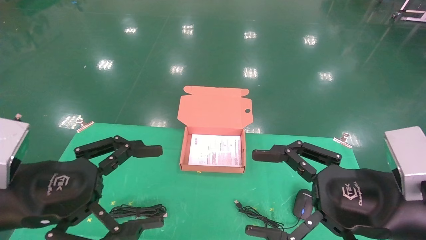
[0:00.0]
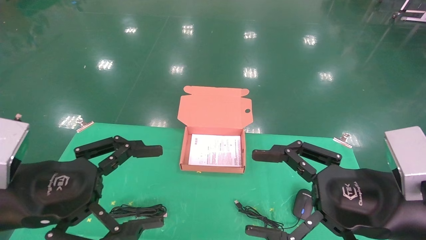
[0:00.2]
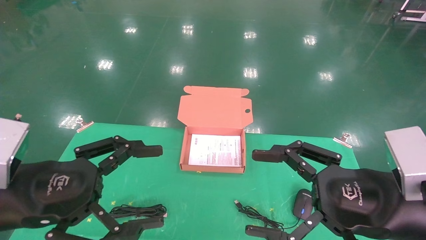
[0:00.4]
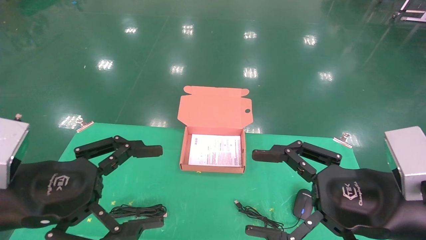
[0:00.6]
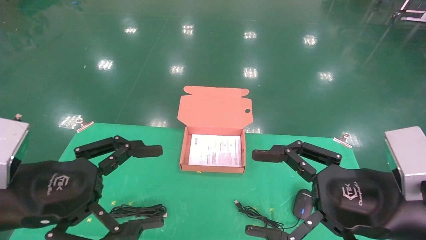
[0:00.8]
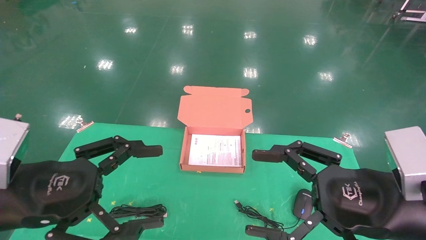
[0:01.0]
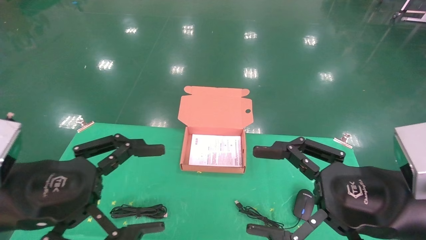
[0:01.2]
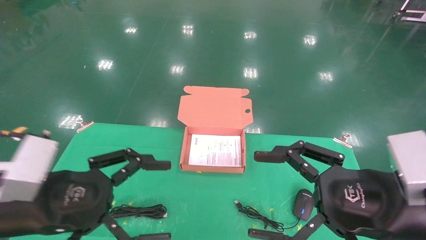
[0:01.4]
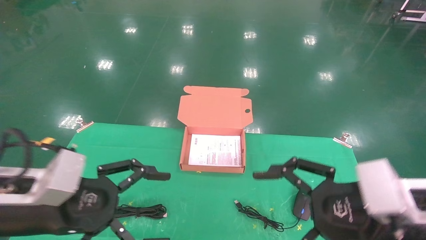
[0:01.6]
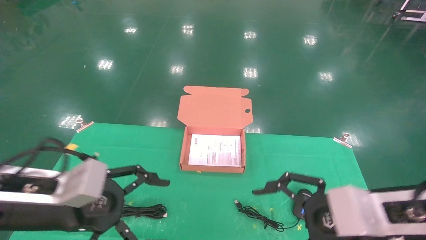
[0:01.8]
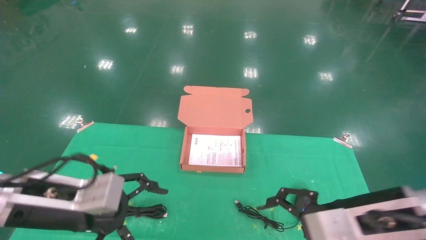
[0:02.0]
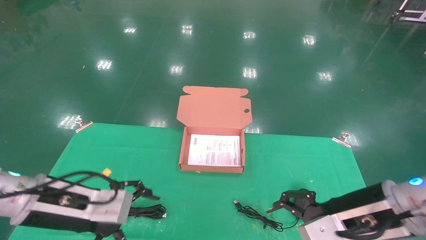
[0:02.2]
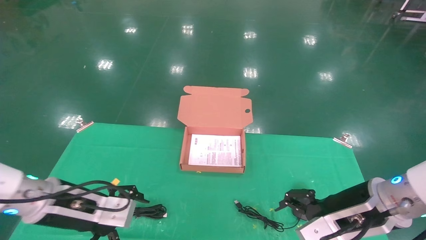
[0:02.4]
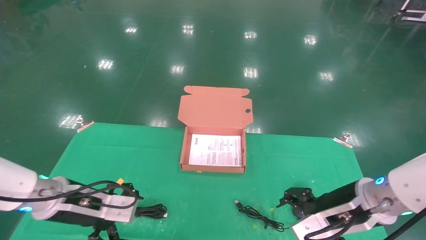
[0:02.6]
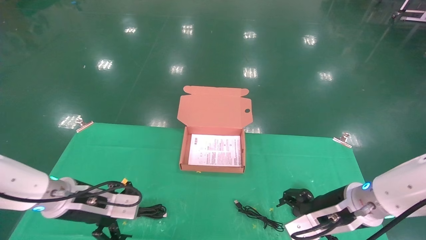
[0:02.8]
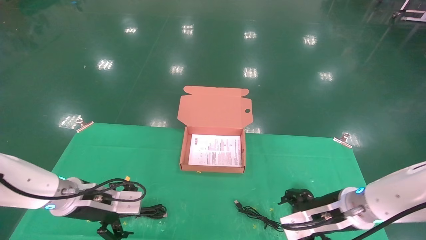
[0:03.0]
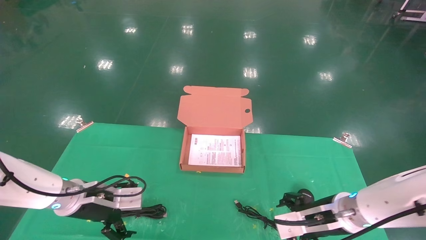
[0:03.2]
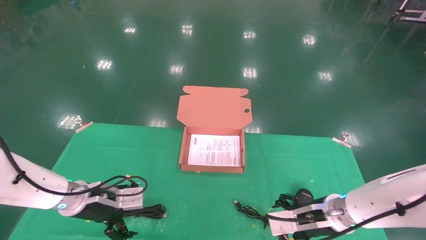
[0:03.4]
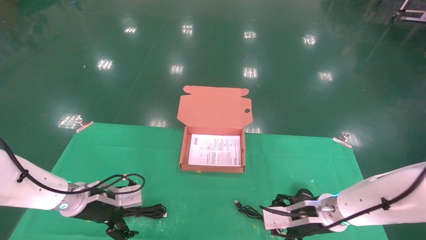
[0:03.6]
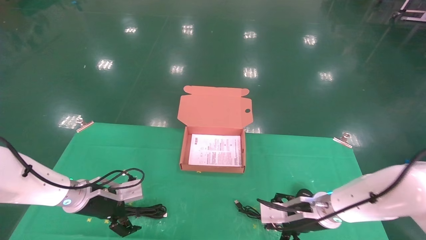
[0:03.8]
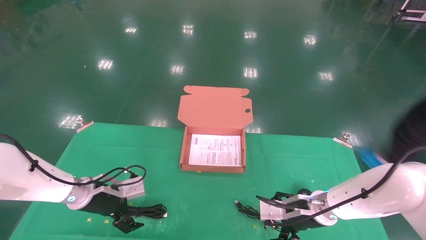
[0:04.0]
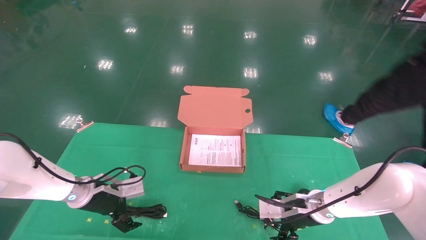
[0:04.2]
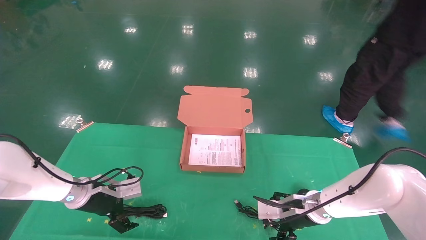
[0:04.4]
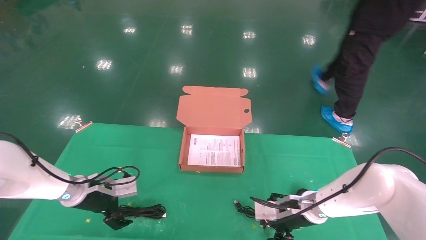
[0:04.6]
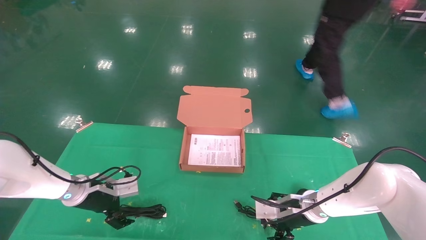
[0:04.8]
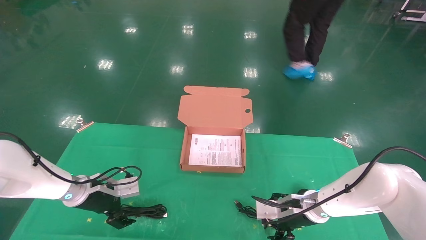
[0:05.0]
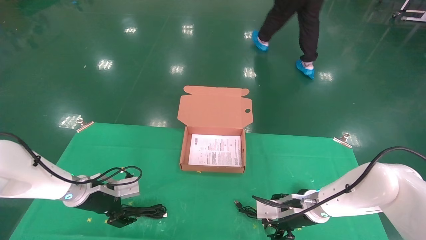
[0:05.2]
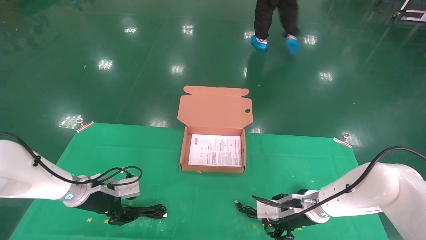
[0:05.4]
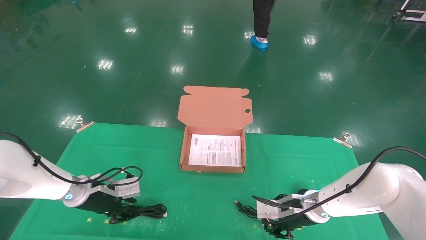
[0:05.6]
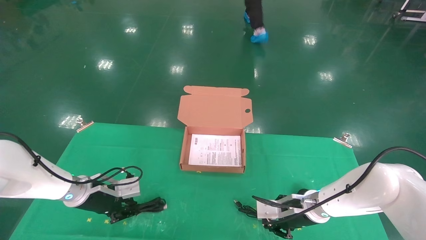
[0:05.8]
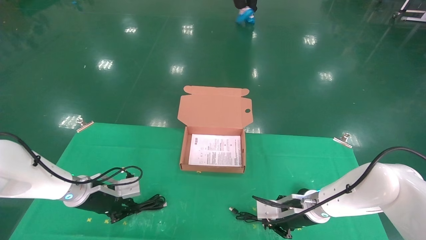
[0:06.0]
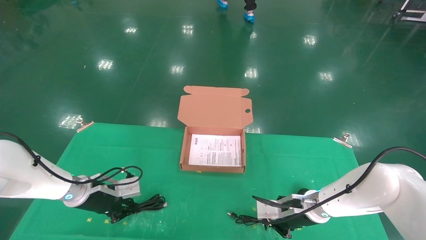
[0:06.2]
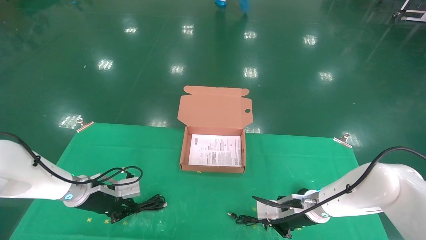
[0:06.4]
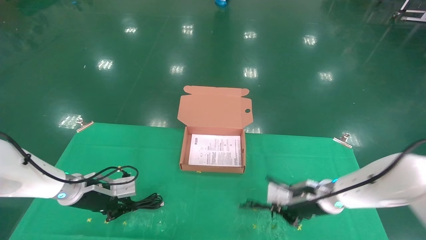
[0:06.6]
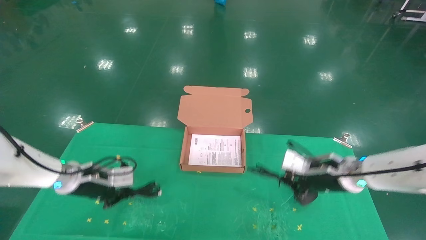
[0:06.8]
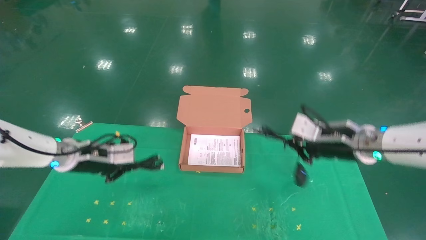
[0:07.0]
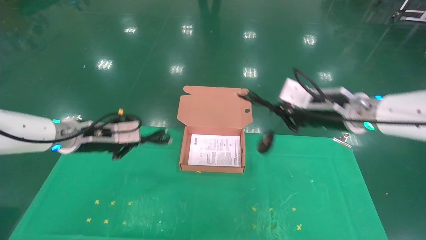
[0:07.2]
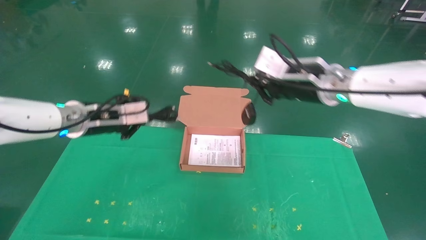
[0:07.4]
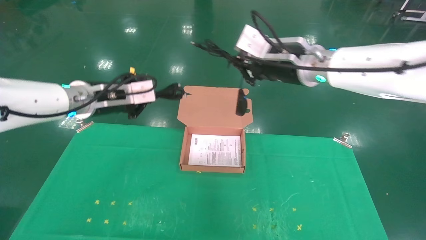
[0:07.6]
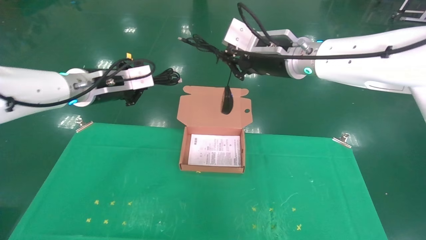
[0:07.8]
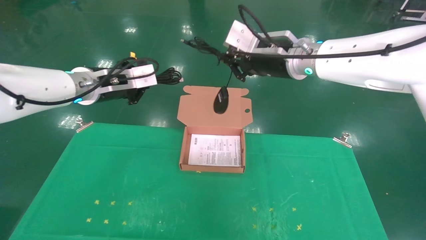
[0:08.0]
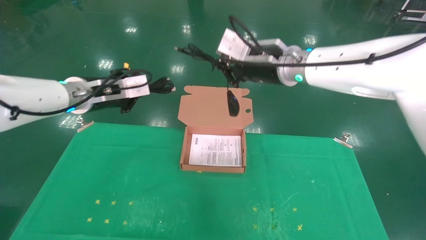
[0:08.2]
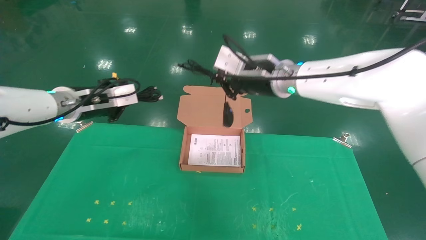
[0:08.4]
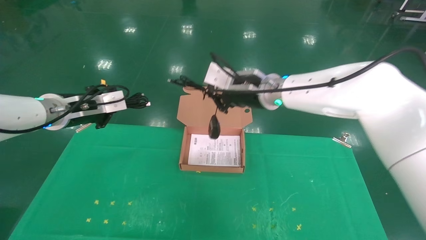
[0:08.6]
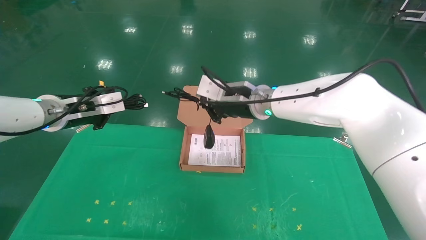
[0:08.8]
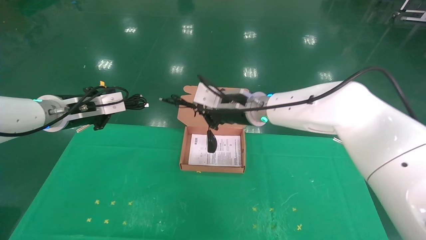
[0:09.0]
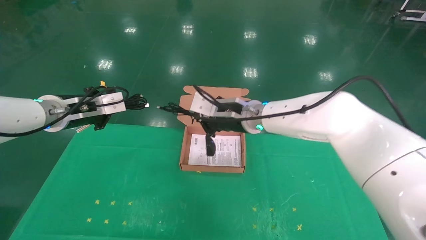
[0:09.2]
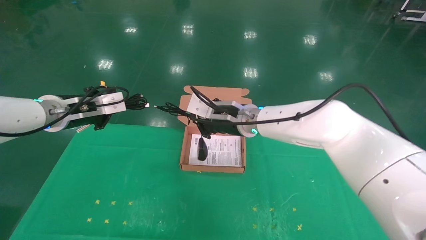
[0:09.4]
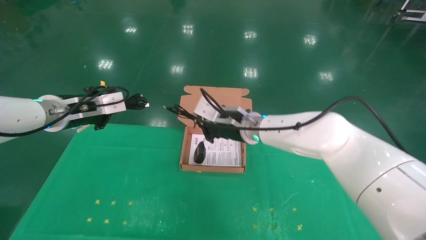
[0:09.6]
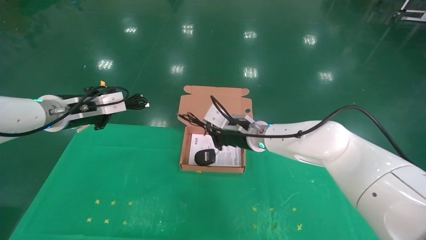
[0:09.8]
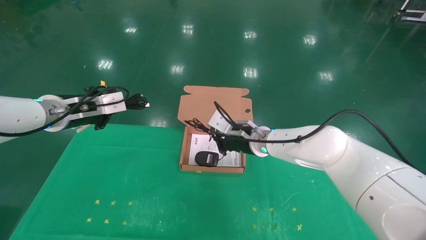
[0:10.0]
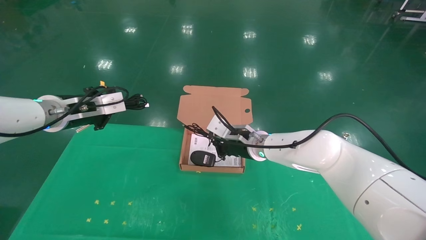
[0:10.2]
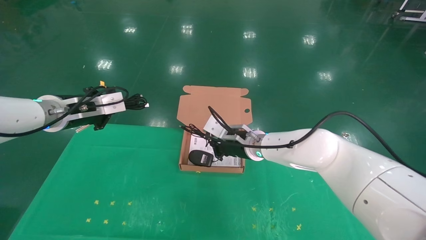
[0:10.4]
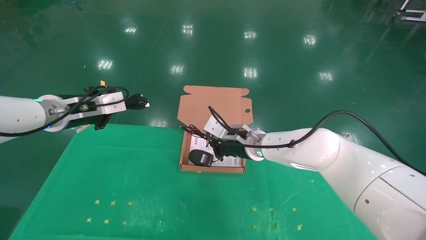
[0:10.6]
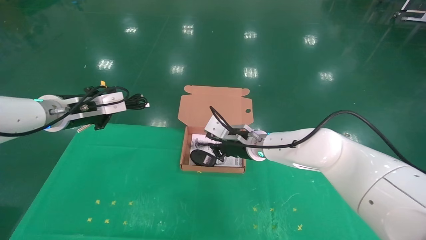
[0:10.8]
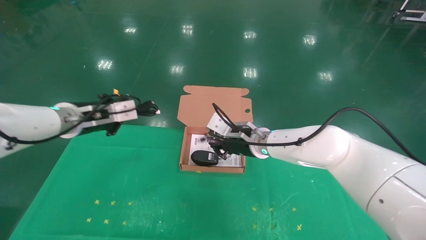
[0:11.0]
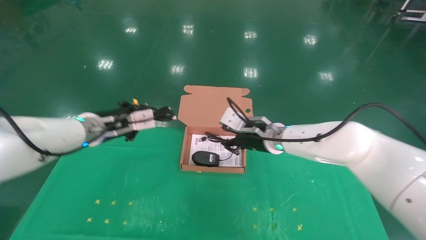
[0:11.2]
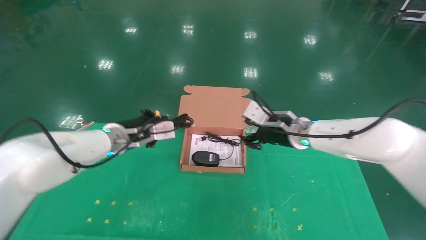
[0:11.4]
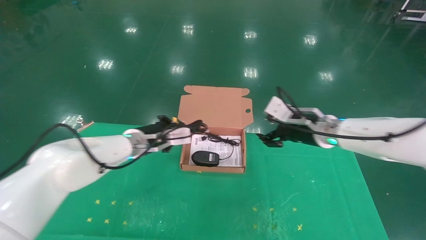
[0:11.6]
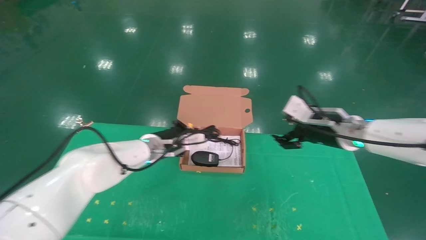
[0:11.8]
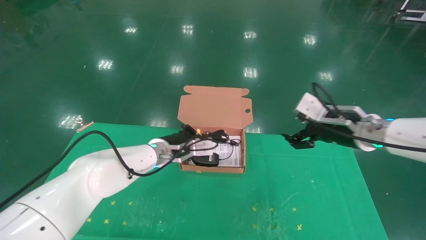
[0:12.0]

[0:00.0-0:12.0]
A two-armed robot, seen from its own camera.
Task of the whole recording: grasp data cable left put into box grasp mouse right put into box.
Step, 0:01.6 to 0:07.2: Grab and pick up both the mouse and power cord from the accessory packaging area at the same time.
0:01.6 to 0:03.0: Both grippers move forward and downward, some 15 cm.
0:03.0 to 0:04.4: The left gripper is displaced forward by about 5 cm. The right gripper is displaced forward and downward by about 10 cm.
0:04.4 to 0:06.0: The right gripper closes its fingers; the left gripper closes up.
0:06.0 to 0:07.6: Both grippers travel together upward, roughly 30 cm.
0:07.6 to 0:09.0: The right gripper shifts approximately 10 cm downward and to the left. The left gripper travels to the left by about 5 cm.
0:09.0 to 0:10.4: The right gripper moves downward, approximately 10 cm.
0:10.4 to 0:12.0: The right gripper is displaced to the right and backward by about 20 cm, and opens up. The left gripper shifts roughly 25 cm to the right, downward and forward.

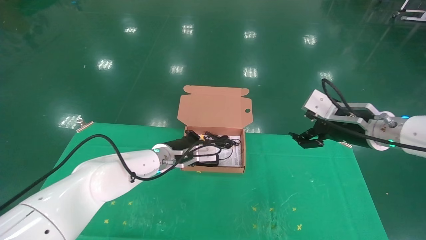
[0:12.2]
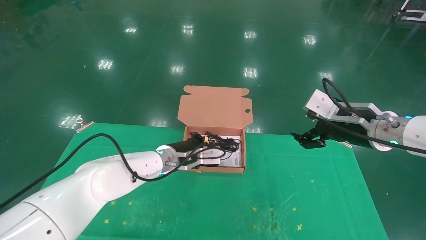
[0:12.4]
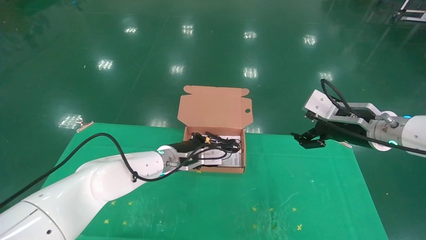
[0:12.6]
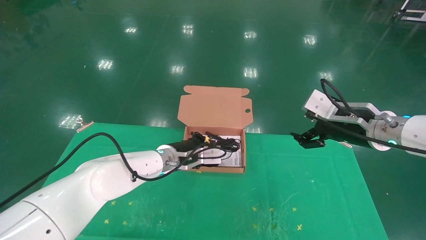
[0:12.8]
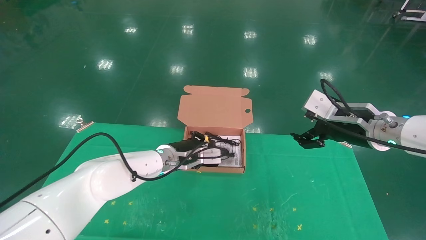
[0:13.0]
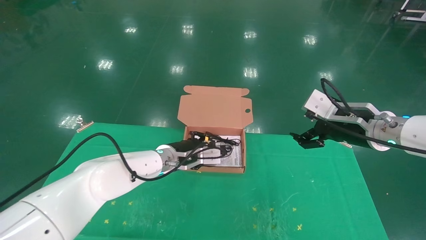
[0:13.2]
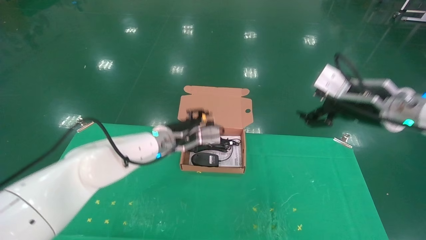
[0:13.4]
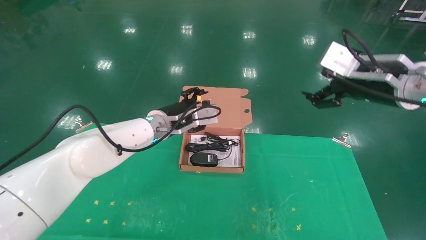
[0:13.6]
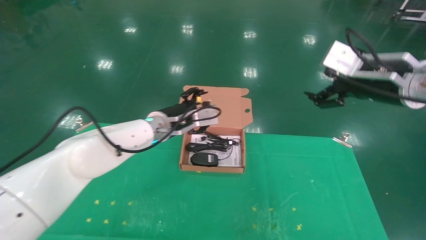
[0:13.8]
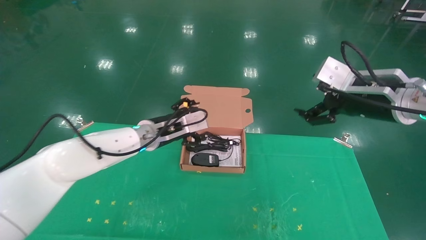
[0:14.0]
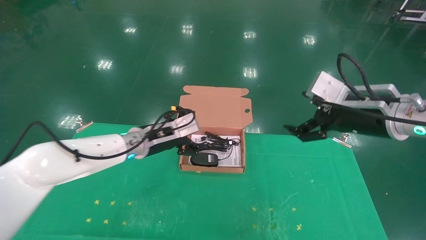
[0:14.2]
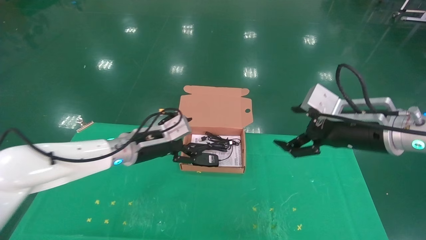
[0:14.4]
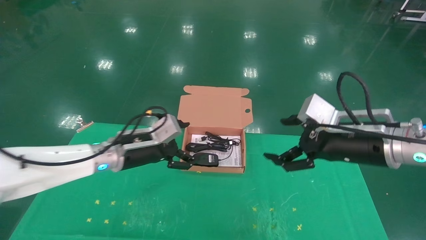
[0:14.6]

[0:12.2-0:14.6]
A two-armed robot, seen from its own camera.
Task of the whole recording: grasp data cable left put into box grasp mouse right put into box.
0:12.2 to 0:13.4: Both grippers travel together upward, about 5 cm. The left gripper opens.
0:13.4 to 0:14.6: The right gripper shifts by roughly 5 cm. The left gripper shifts roughly 5 cm to the left, and opens.

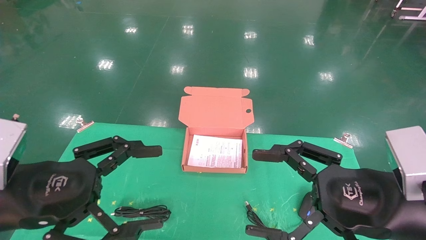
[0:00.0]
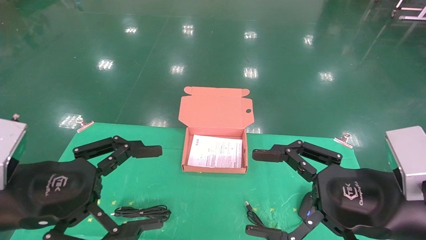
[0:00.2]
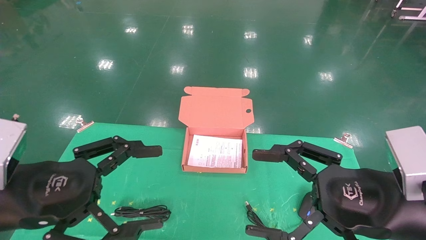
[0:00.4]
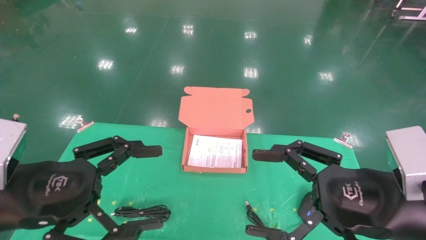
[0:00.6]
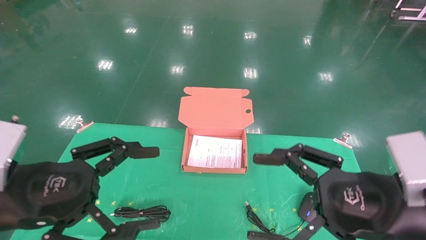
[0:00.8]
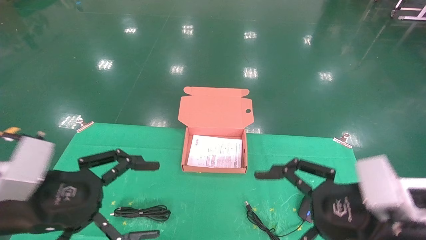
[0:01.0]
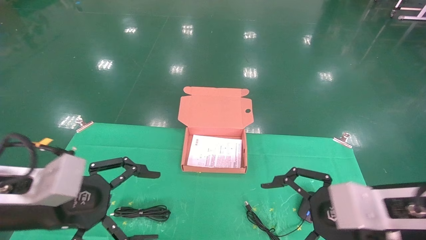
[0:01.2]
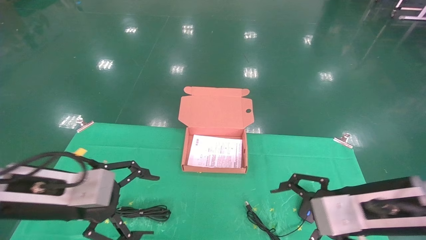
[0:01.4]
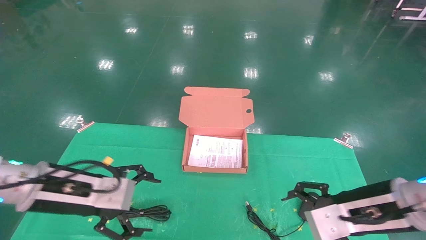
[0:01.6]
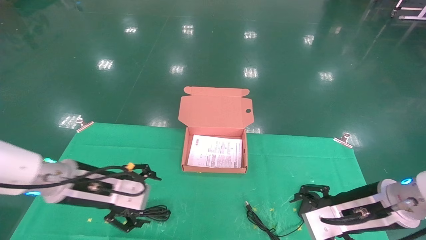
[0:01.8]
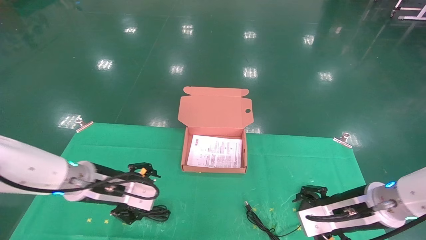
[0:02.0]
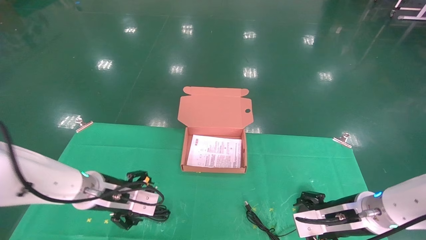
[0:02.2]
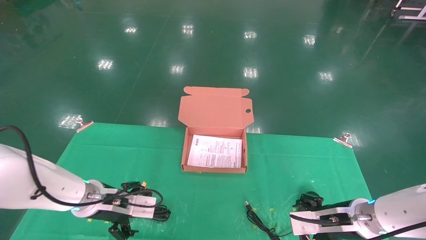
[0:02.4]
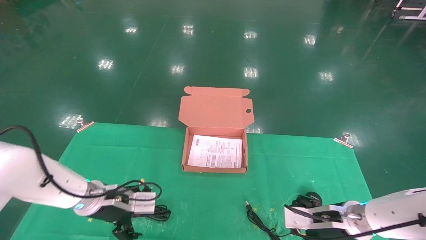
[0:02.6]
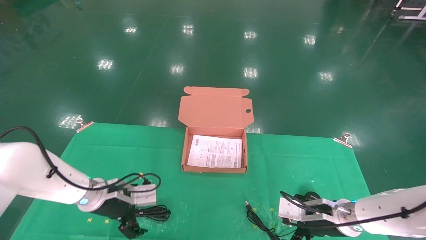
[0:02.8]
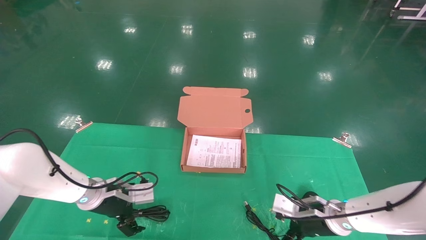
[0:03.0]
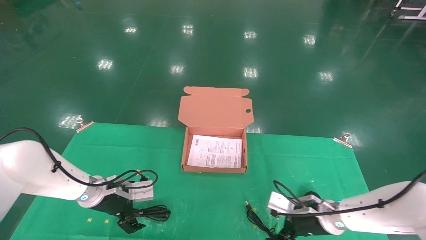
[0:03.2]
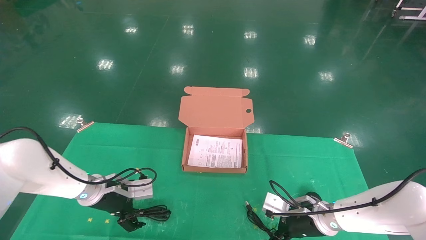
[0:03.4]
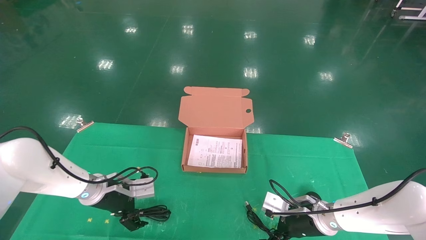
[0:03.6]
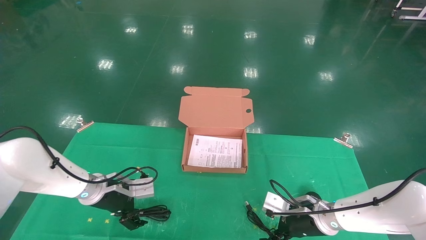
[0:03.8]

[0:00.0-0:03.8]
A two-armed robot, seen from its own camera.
Task of the whole recording: grasp data cable left put into box grasp mouse right put into box.
0:01.2 to 0:02.6: The grippers both shift forward and downward by some 20 cm.
0:02.6 to 0:03.8: The right gripper moves some 5 cm.
